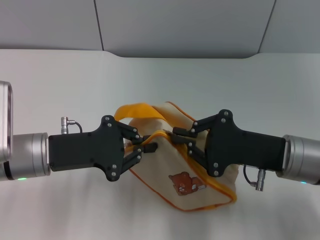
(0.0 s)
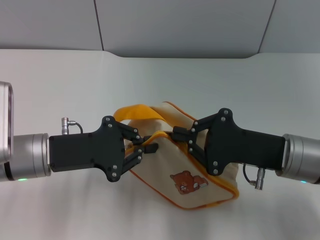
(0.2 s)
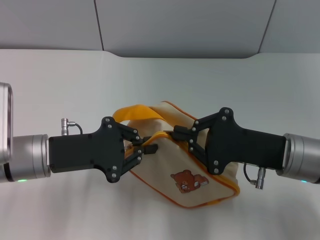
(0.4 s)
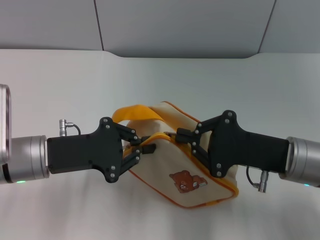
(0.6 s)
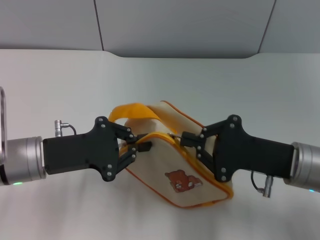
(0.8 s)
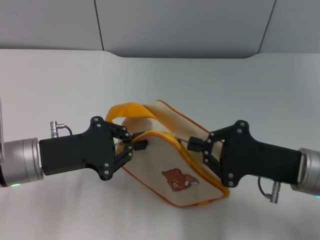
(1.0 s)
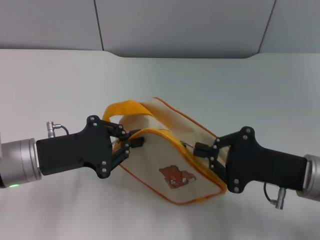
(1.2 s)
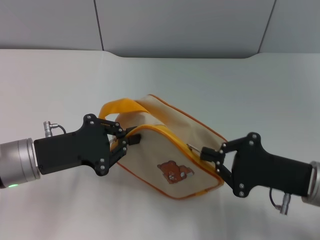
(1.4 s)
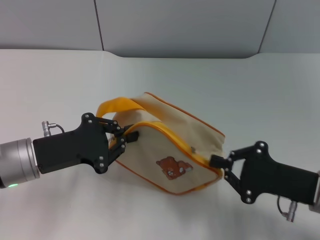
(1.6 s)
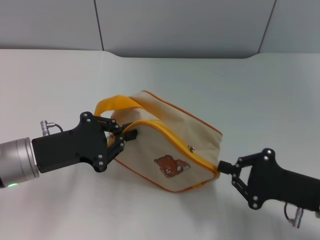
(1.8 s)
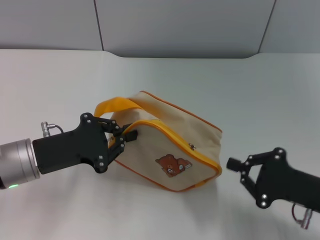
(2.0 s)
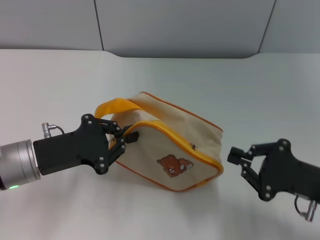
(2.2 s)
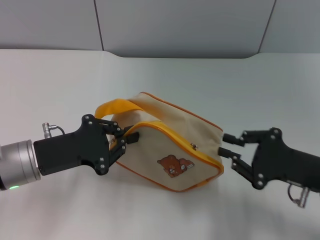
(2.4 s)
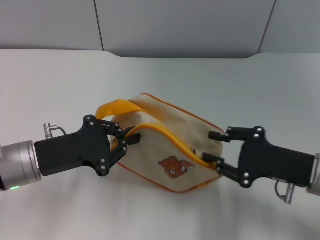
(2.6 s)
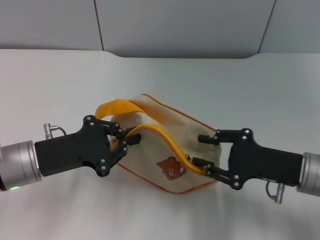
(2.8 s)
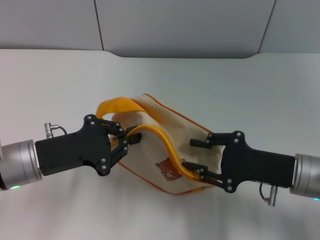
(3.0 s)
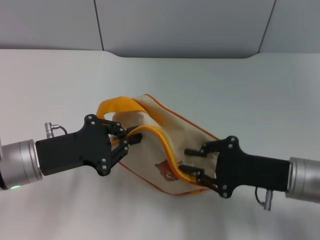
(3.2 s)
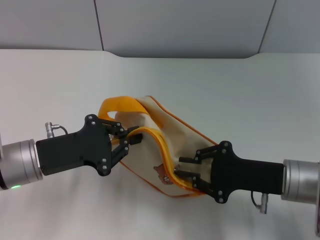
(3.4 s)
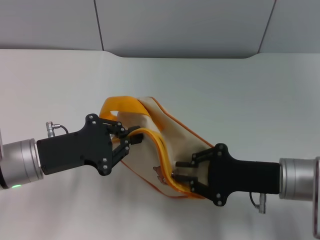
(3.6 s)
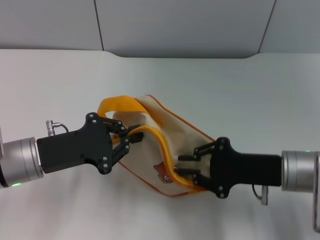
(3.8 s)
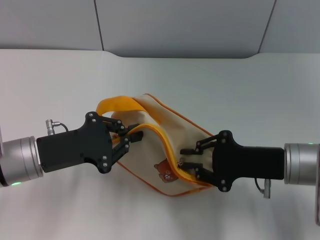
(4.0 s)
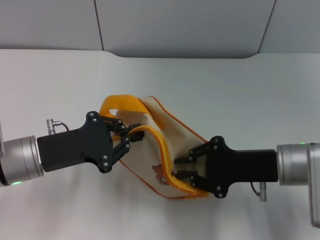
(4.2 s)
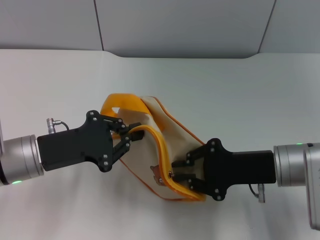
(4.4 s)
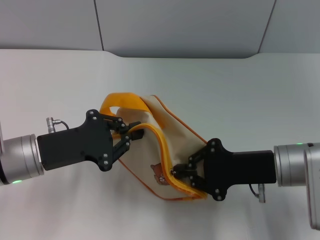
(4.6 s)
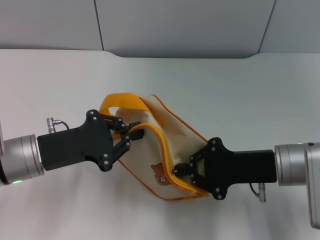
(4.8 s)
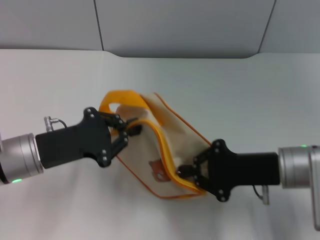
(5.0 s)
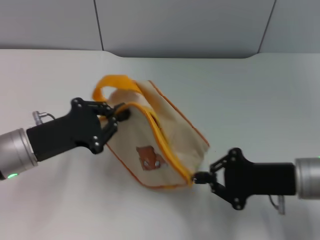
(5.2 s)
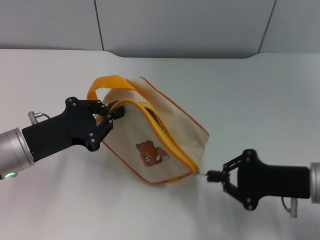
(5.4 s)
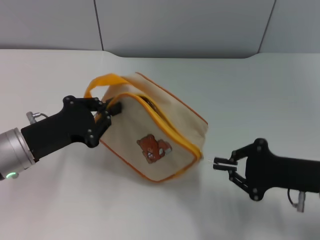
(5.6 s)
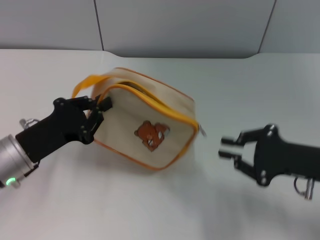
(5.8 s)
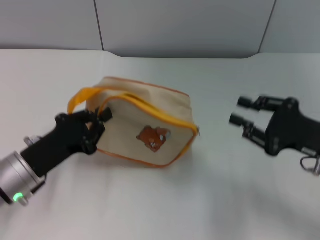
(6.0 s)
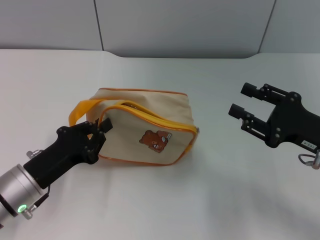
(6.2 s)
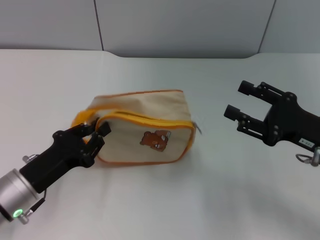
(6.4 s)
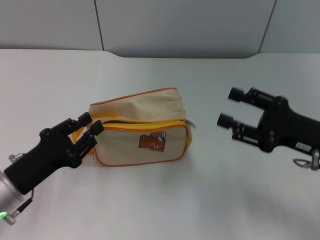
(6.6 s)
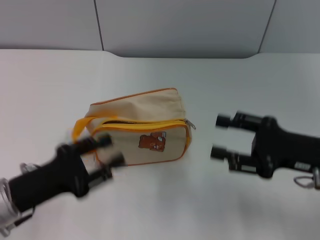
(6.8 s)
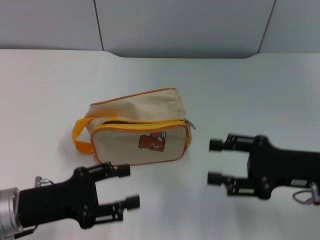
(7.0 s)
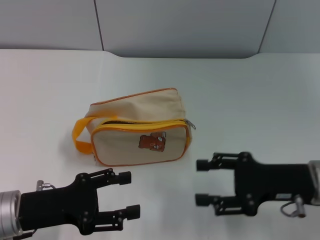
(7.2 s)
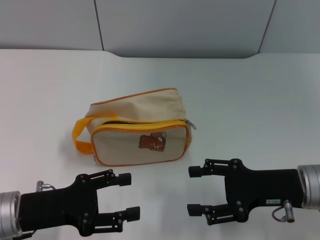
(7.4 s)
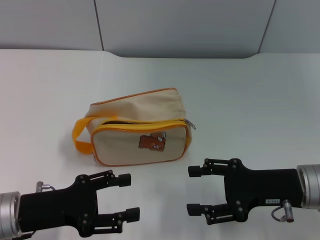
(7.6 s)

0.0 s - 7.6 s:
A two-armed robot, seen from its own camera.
Step, 0.0 s - 5.6 s: Unzip the zipper of bag with right gripper.
Step, 5.8 s - 6.6 s: Place the bag on the table with left gripper.
0.0 s - 1.6 s: The right gripper ends up about 5 cm from where it was.
1.6 s - 3.0 s: The right gripper opens its fingers.
3.0 s - 4.6 s: The right gripper closes up.
4.6 s - 6.0 s: The right gripper is displaced to the right by about 10 cm.
6.0 s - 7.6 s: The right gripper moves some 5 cm, and opens its fingers; the left gripper opens.

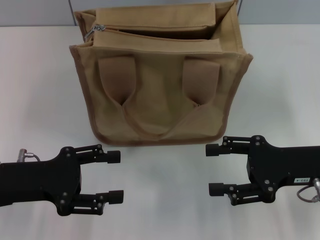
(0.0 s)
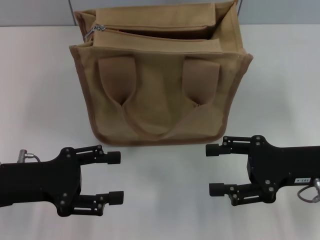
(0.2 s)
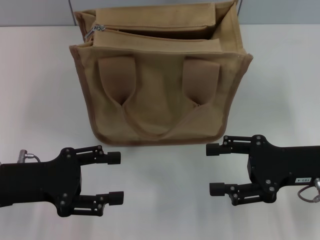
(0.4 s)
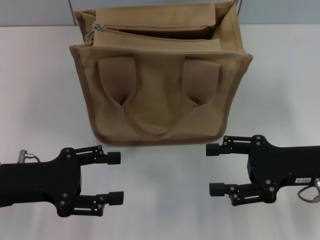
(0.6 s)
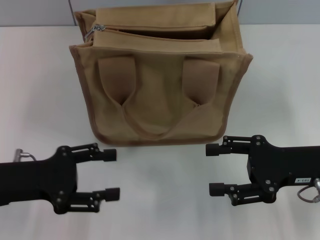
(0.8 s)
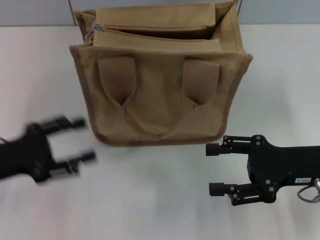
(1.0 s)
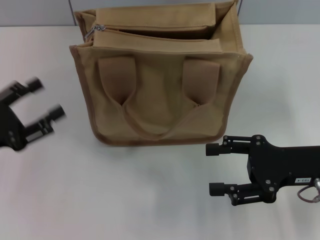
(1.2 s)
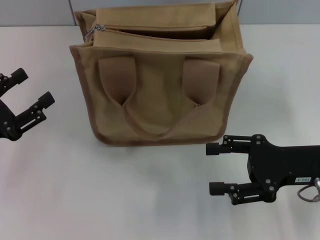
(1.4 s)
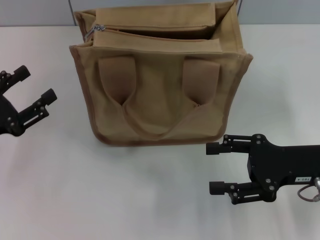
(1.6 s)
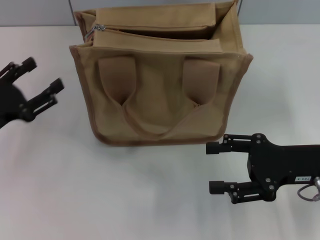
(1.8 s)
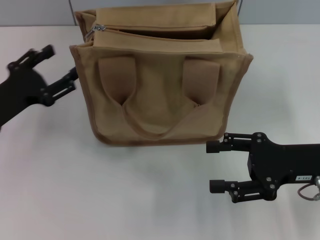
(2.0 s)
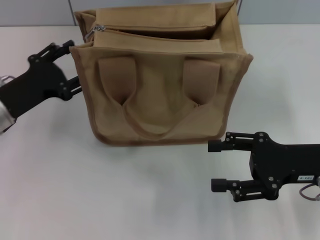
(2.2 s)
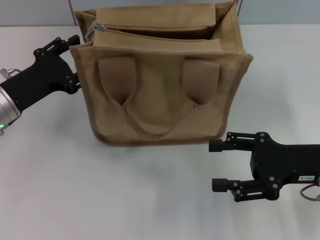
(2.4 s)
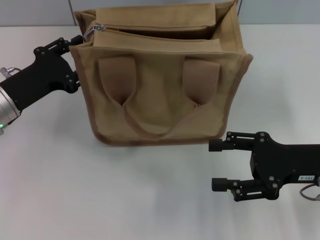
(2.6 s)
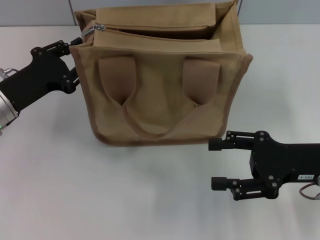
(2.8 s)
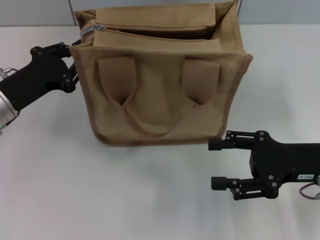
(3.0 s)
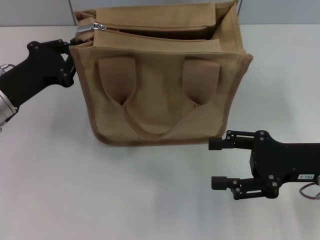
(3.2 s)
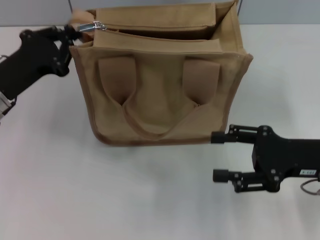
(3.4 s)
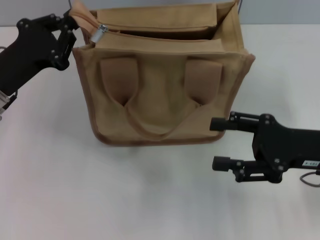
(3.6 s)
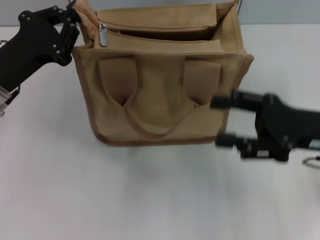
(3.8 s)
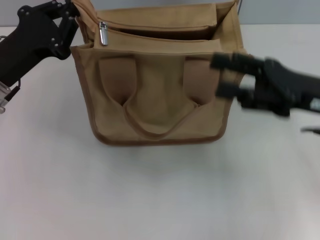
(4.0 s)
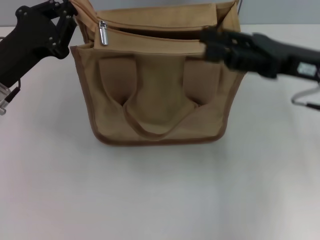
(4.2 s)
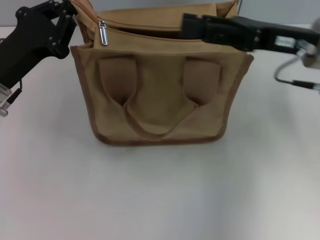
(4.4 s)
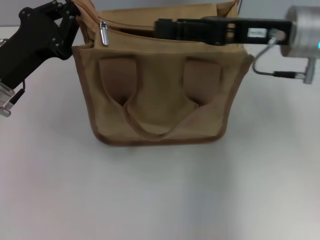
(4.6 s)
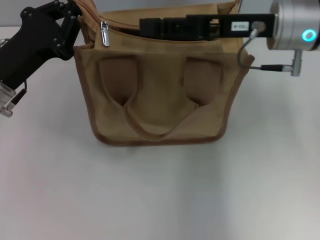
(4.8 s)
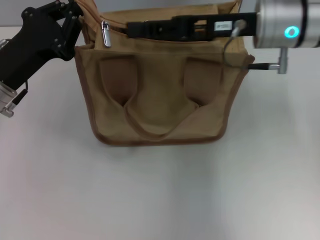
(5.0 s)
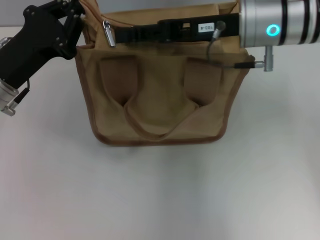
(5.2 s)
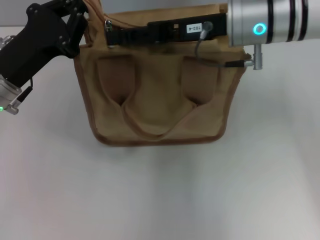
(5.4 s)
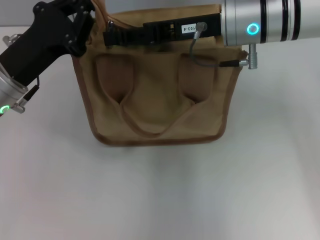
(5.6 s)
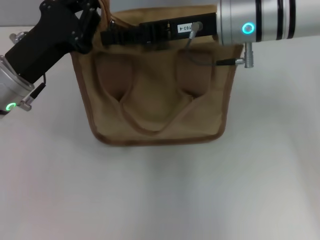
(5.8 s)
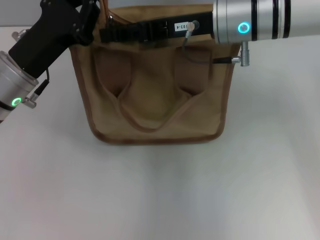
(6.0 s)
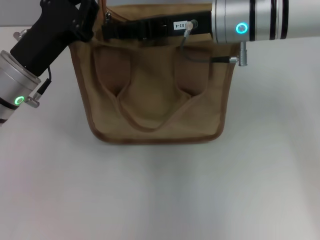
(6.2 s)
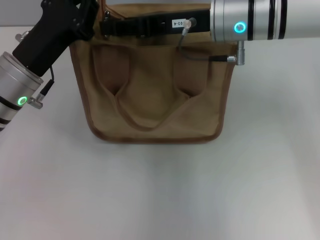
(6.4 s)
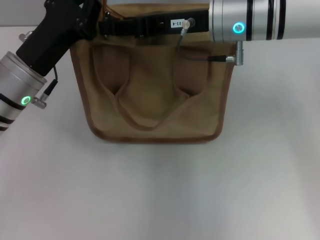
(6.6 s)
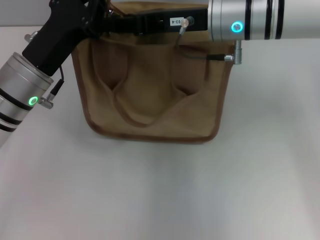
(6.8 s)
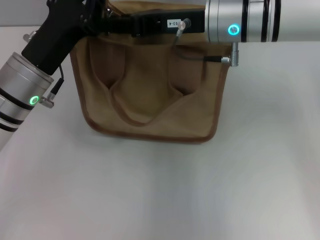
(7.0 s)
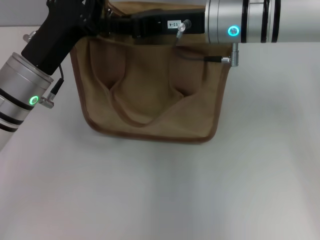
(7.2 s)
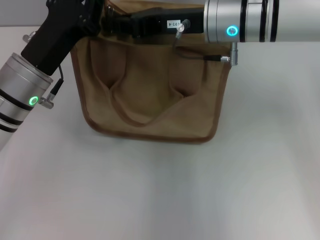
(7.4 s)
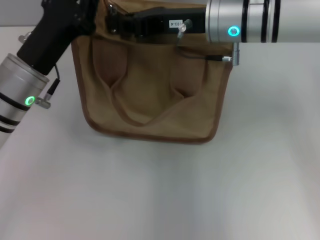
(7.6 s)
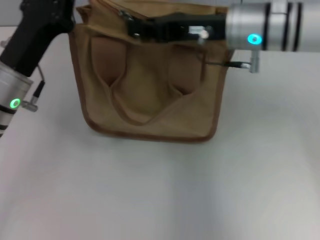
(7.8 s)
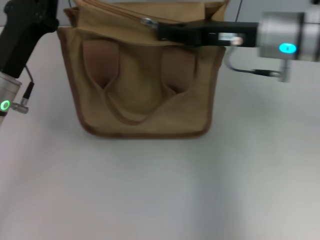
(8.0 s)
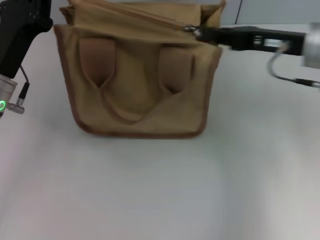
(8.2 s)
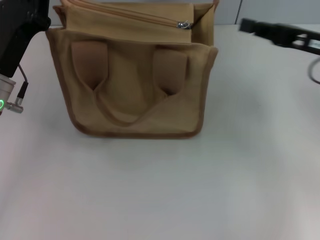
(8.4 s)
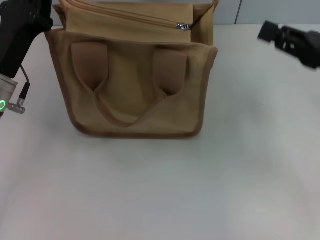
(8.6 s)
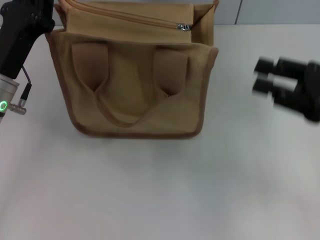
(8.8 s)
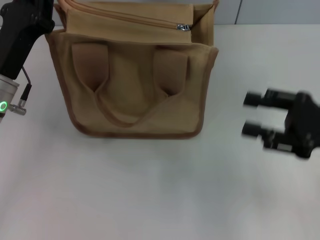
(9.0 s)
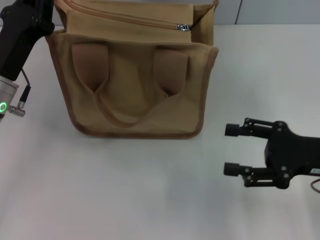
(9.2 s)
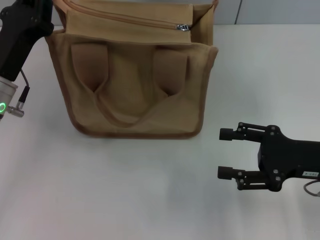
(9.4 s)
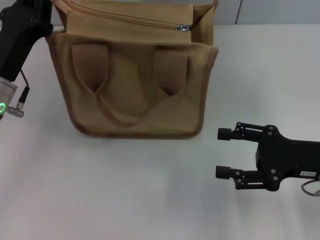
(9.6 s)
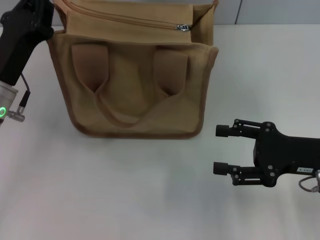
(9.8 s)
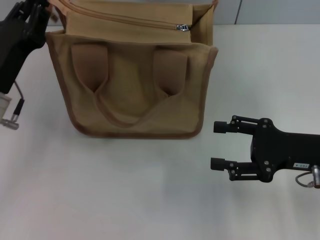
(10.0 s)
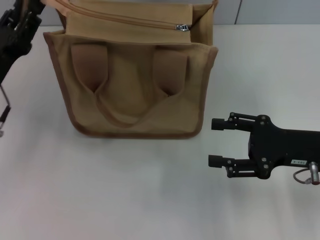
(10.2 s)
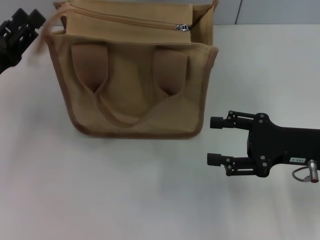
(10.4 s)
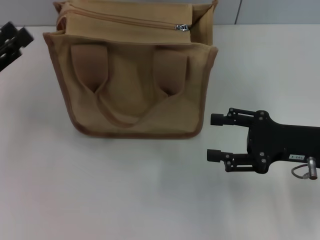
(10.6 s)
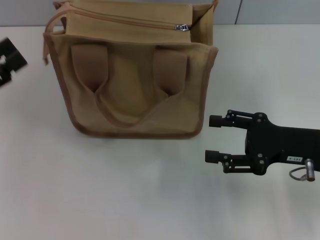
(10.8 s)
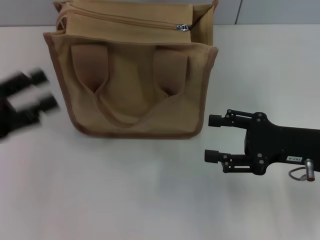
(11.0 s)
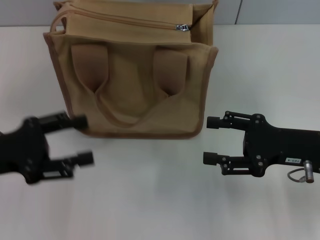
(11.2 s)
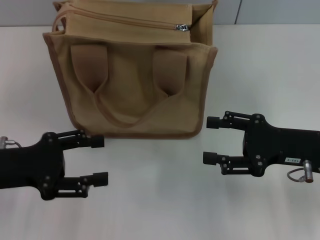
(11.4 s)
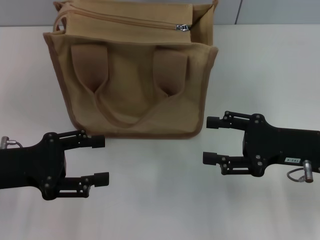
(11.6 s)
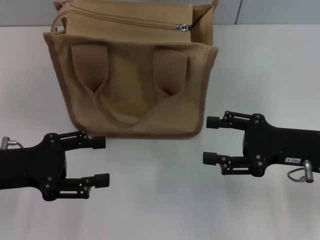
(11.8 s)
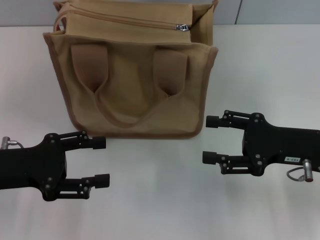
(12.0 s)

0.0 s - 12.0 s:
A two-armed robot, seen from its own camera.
Step, 0.0 s - 8.2 s: Pull up the zipper with your right hand.
Step, 8.4 s - 10.6 s: Grab the zipper with your left hand.
0.0 s - 1.6 s: The left gripper heads to the left, covering roughly 5 cm.
1.6 s - 3.0 s: The left gripper goes roughly 10 cm forward and to the right, and closes its fingers.
3.0 s - 4.4 s: The left gripper closes. The right gripper travels forward and upward by roughly 15 cm.
4.4 s - 6.0 s: The right gripper shifts roughly 10 cm to the left.
6.0 s - 7.6 s: The right gripper closes its fingers.
7.6 s - 9.0 s: The right gripper shifts about 25 cm to the right, backward and downward.
9.0 s - 10.4 s: The left gripper goes approximately 5 cm to the left, and opens, while the right gripper opens up.
10.4 s - 12.0 s: The left gripper opens its fingers.

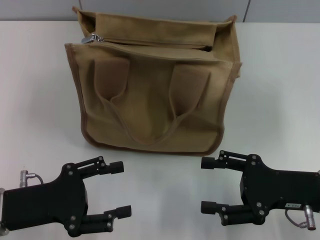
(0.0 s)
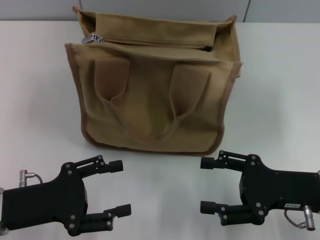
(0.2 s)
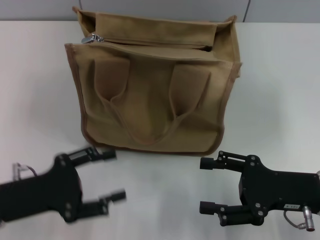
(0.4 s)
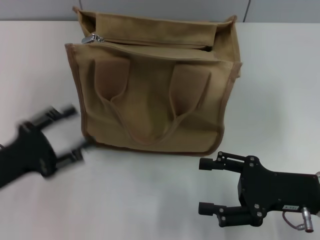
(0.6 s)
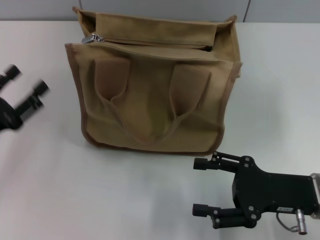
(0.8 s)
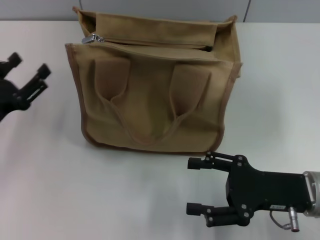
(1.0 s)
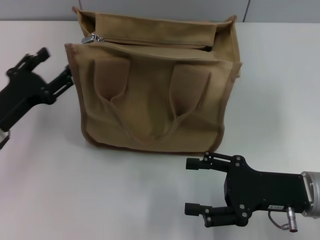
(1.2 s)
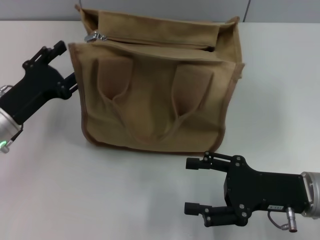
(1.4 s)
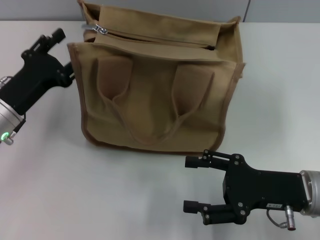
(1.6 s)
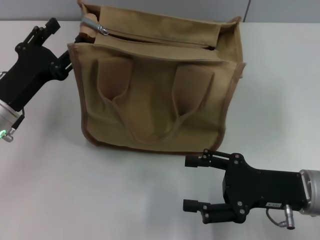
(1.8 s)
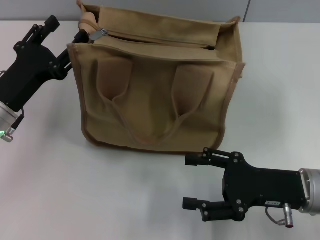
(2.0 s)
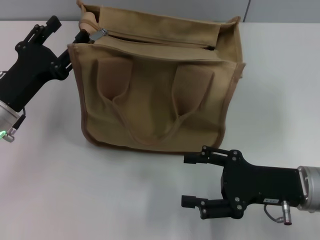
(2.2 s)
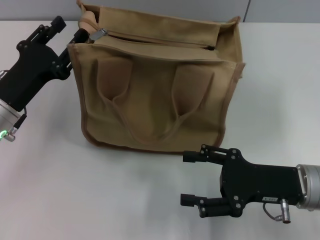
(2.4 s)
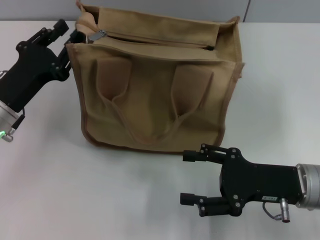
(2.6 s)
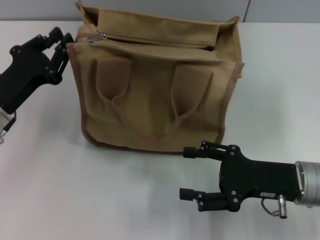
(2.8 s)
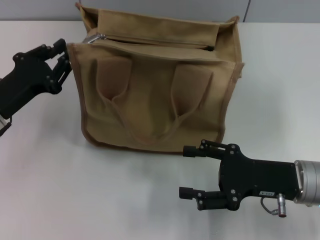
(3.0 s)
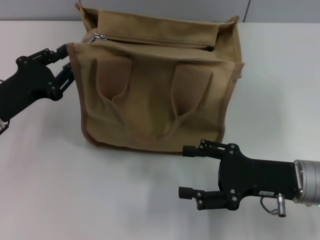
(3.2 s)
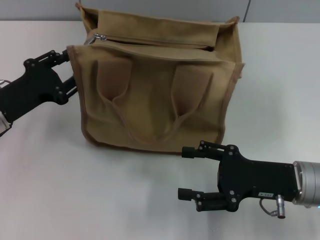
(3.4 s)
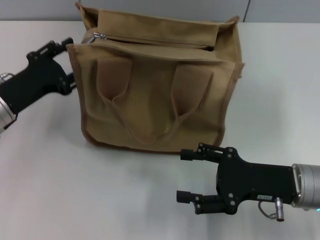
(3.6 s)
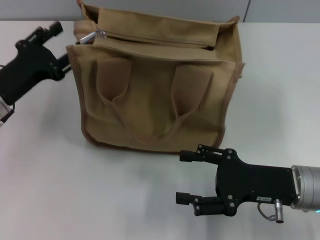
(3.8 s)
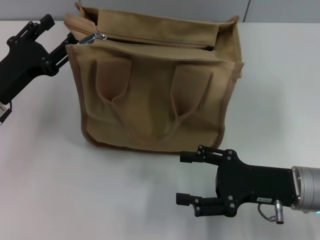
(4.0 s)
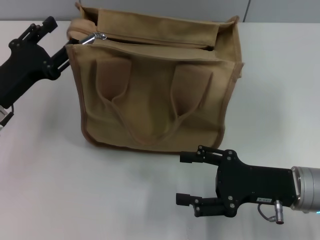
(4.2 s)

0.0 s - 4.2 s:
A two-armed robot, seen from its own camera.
0.0 s - 1.4 s: The left gripper shifts approximately 10 cm forward.
1.4 s - 2.8 s: The left gripper closes up.
2.8 s - 4.2 s: The left gripper opens up.
